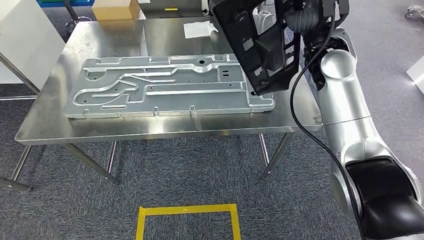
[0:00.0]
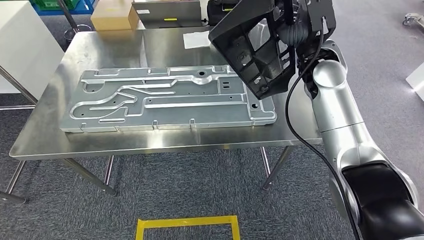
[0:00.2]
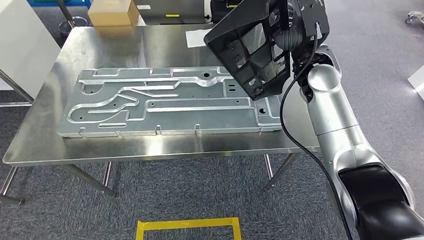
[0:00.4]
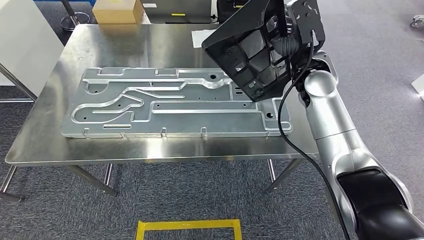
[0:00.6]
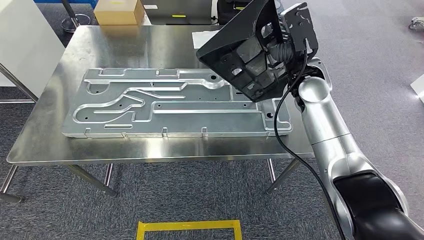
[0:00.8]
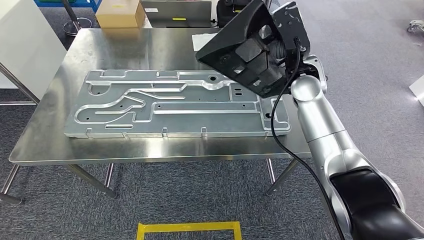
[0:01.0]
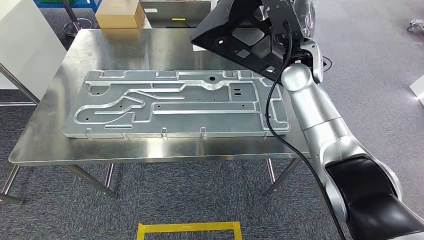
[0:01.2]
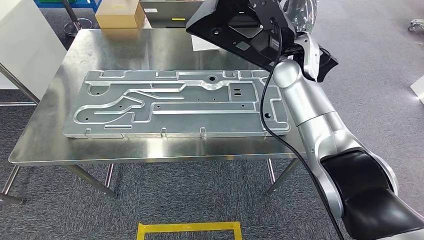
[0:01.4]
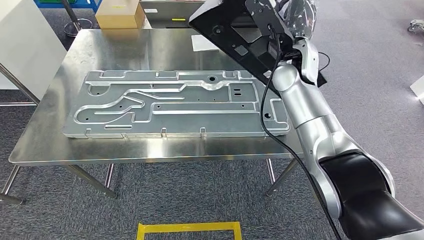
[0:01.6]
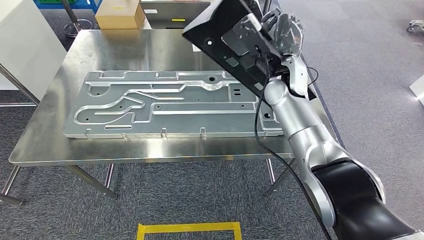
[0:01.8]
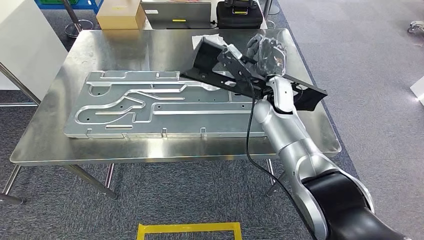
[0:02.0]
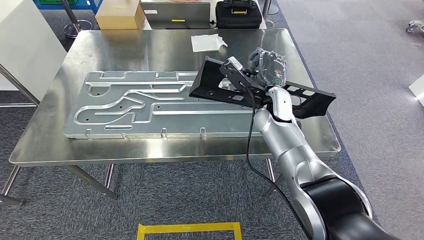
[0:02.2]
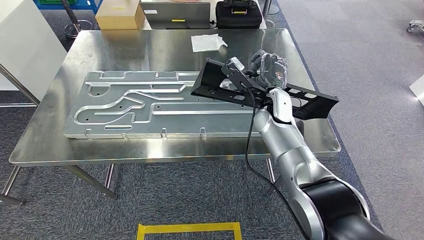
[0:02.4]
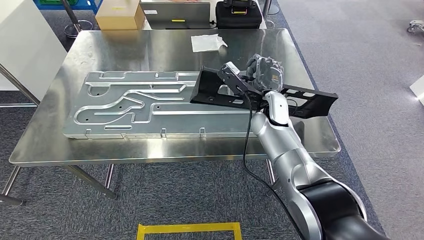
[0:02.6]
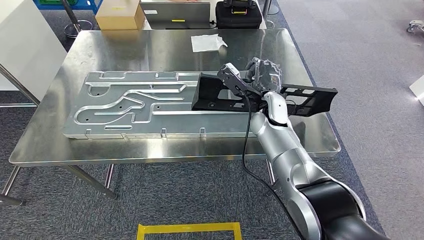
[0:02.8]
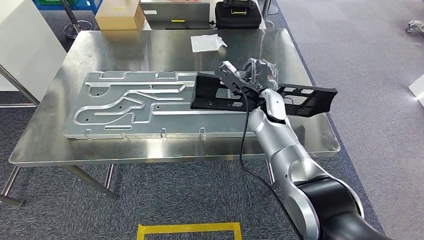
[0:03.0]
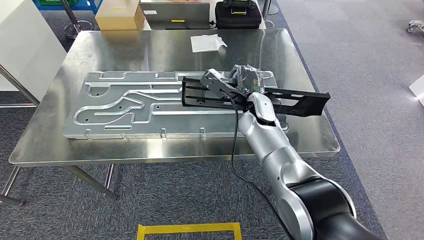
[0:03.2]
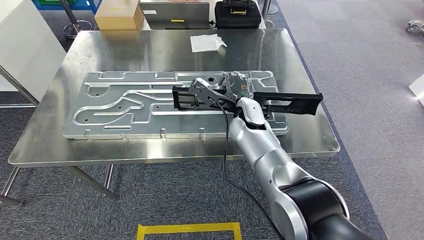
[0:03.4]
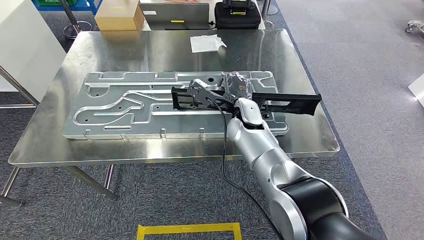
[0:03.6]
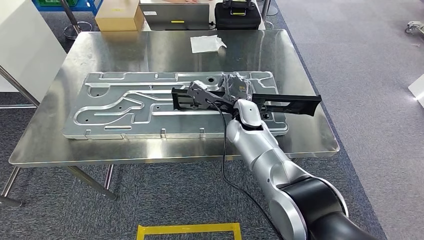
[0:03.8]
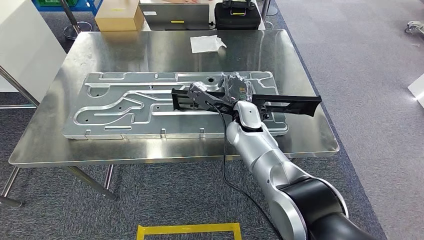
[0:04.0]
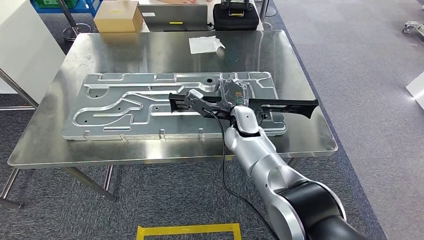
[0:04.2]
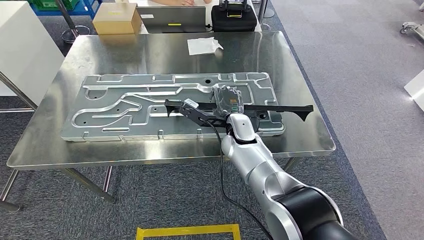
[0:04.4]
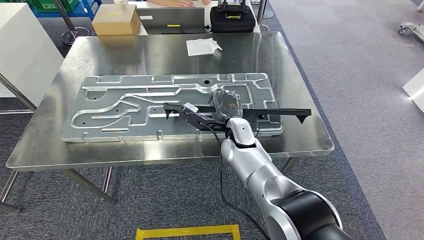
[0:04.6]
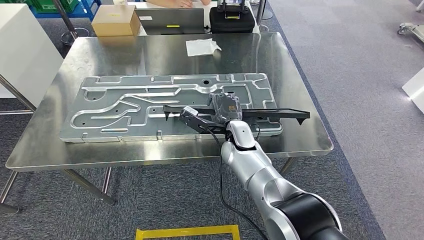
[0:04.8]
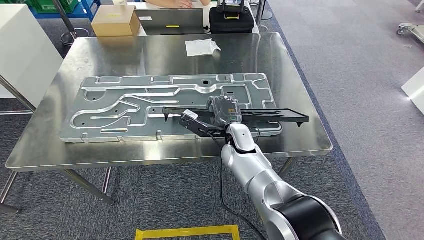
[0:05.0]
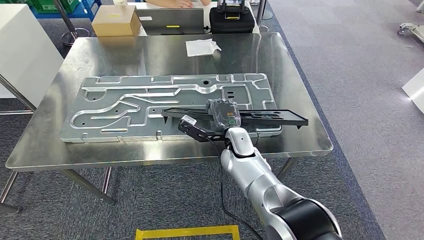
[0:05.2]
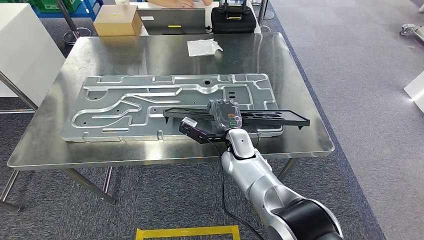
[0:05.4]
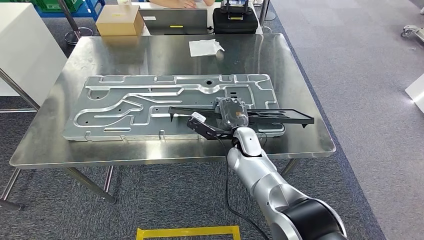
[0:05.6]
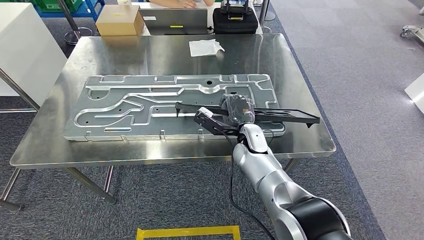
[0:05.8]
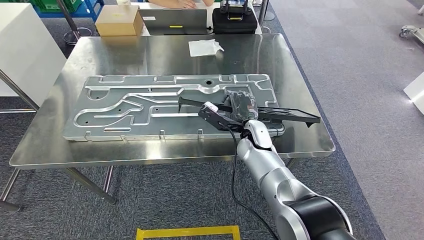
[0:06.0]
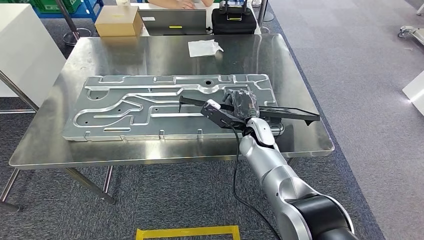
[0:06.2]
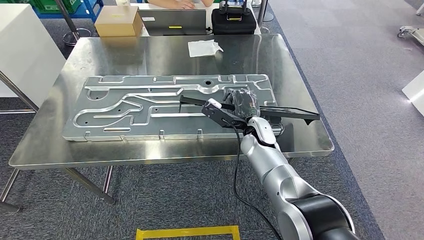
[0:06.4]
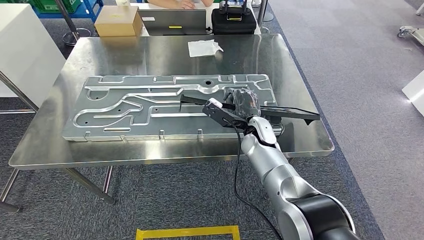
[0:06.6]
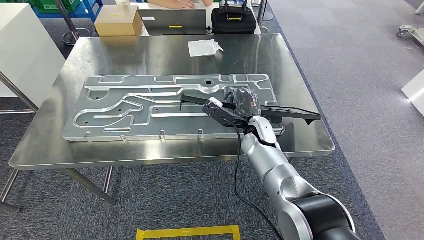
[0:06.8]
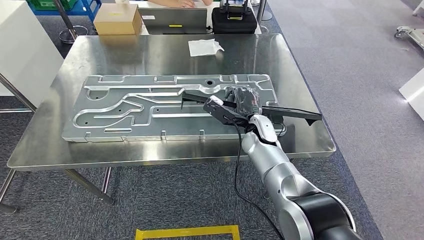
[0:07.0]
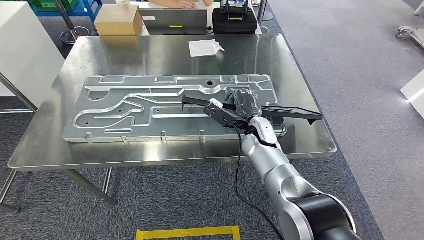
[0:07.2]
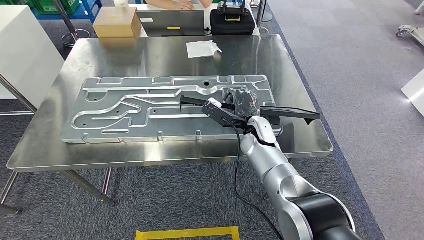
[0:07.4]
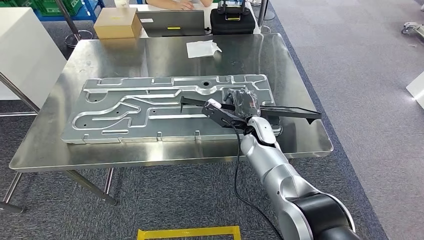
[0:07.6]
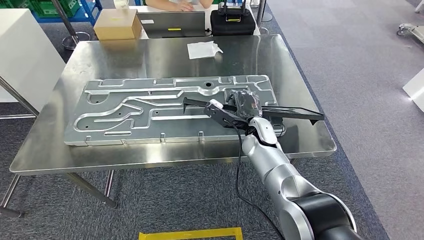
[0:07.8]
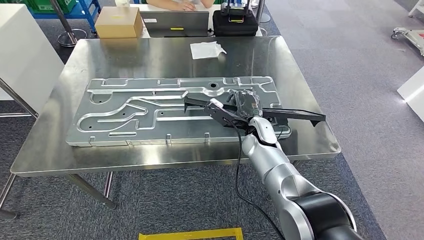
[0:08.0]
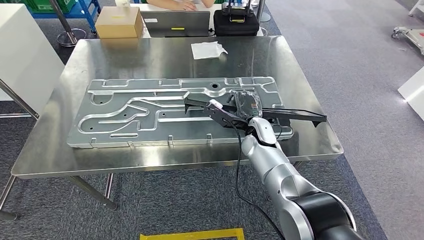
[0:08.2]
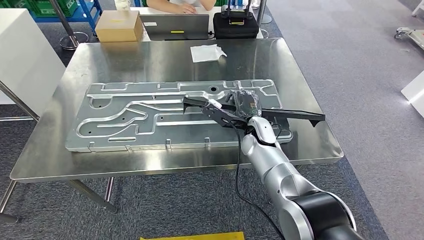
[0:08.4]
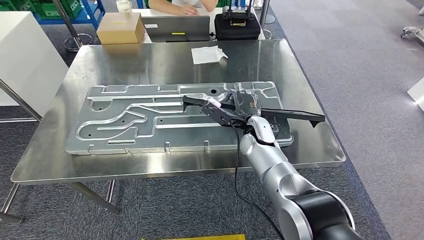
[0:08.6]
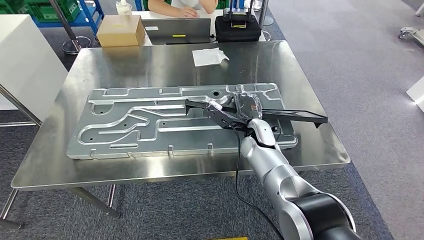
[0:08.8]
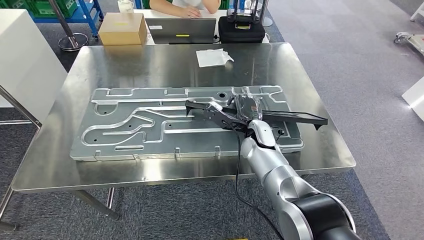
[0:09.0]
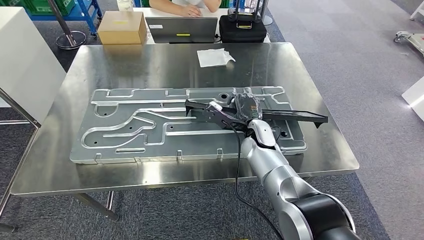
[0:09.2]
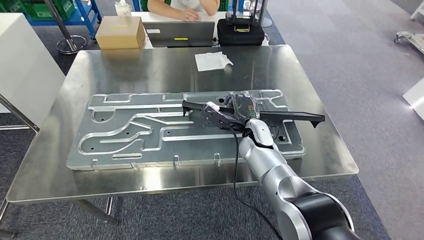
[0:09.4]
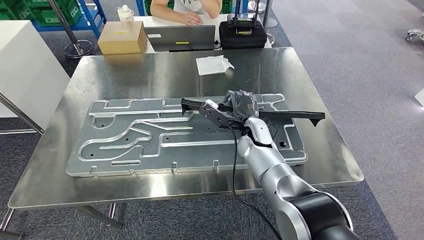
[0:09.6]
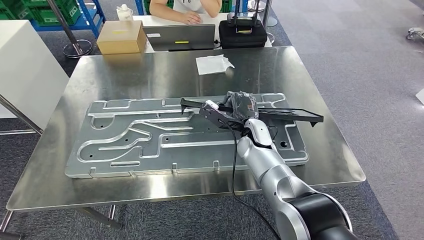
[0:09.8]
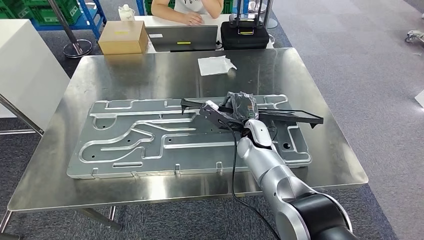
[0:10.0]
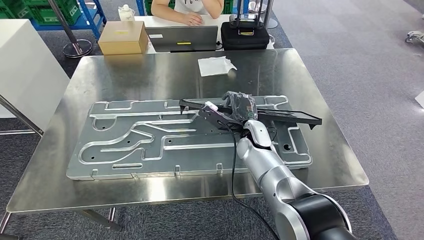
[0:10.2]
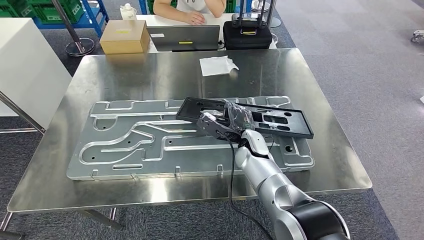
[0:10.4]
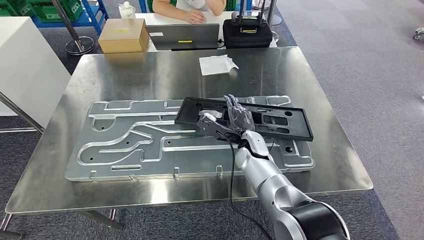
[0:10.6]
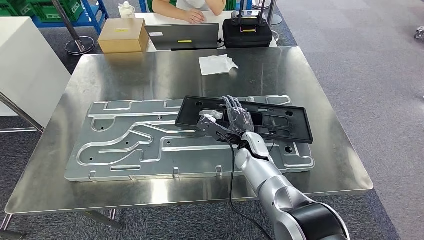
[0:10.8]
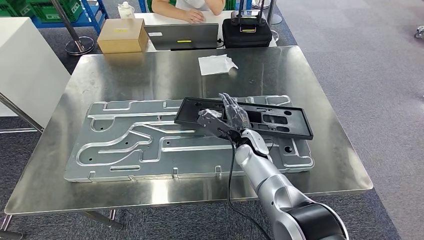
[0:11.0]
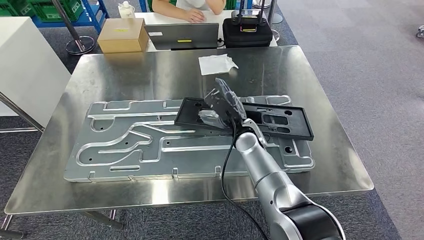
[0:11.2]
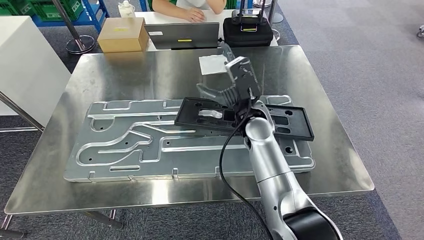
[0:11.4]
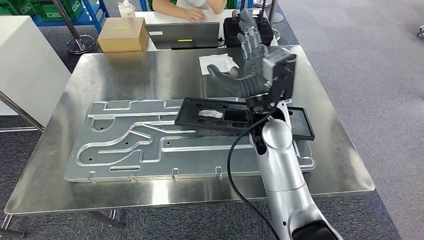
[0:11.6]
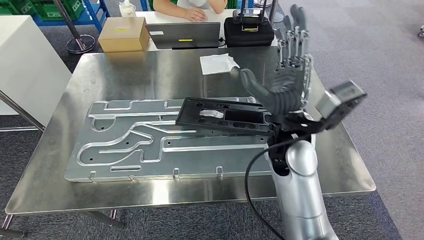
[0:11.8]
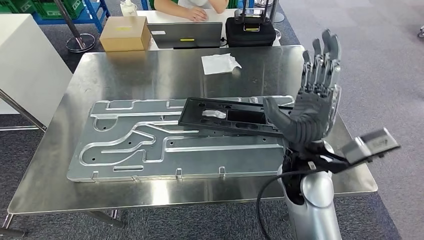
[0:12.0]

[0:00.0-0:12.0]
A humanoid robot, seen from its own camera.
Step, 0:01.6 to 0:11.8: Insert the large material into the corresponding hole on the workbench.
0:04.4 to 0:06.0: The right hand ends up about 5 cm from where it was.
0:06.0 to 0:07.6: The hands make only small movements.

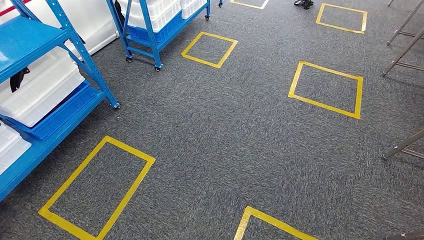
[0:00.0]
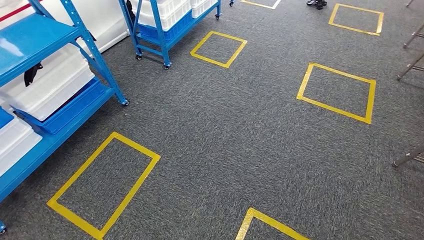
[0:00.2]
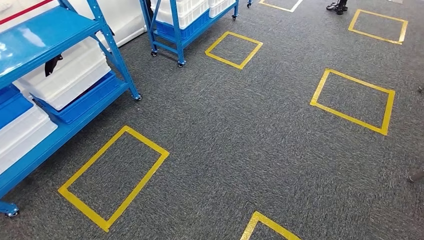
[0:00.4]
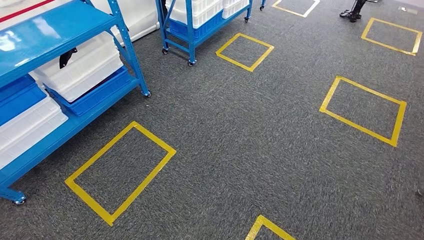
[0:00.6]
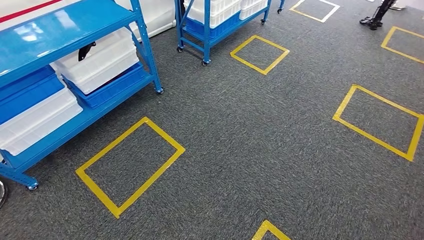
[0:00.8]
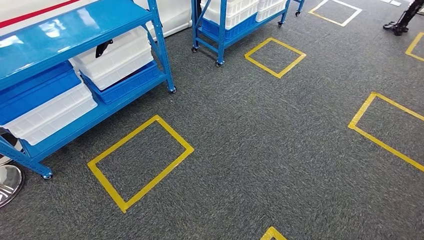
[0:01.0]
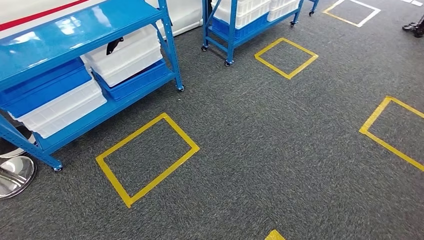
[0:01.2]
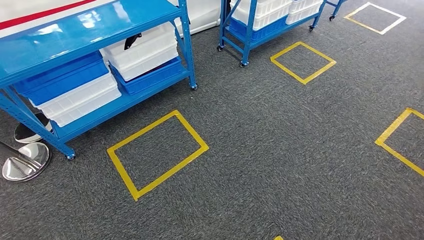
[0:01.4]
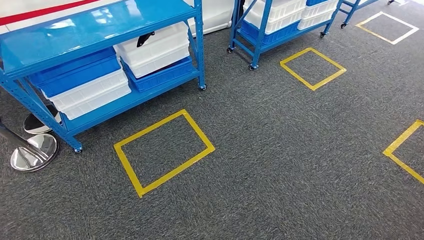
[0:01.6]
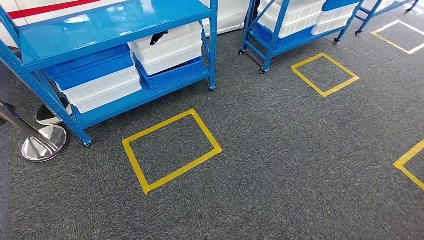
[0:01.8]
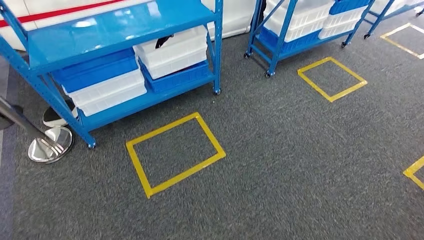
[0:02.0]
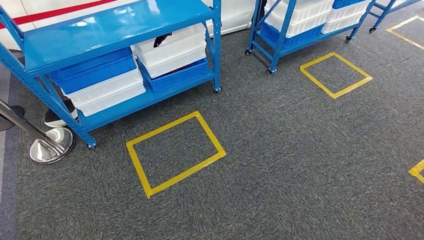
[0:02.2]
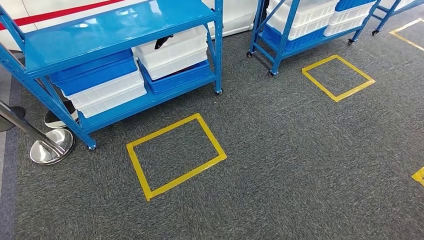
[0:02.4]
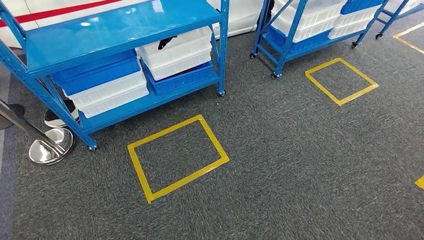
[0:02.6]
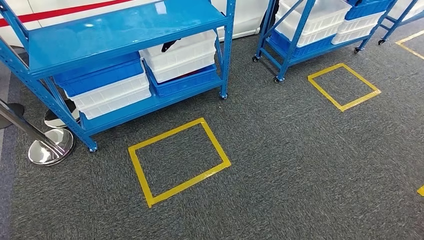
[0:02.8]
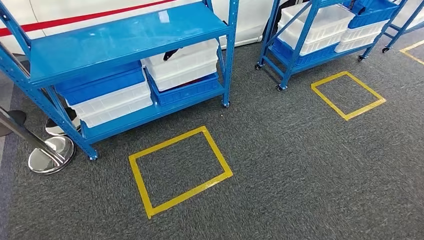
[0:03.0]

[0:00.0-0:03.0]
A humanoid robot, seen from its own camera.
Step, 0:00.0 to 0:02.8: Move to the initial position of the shelf.
